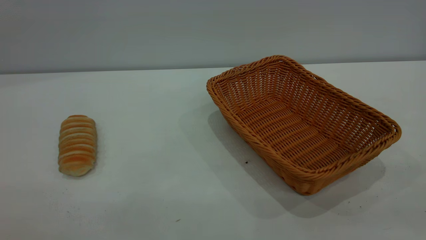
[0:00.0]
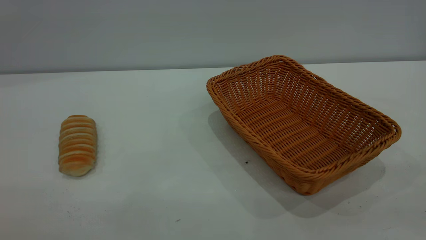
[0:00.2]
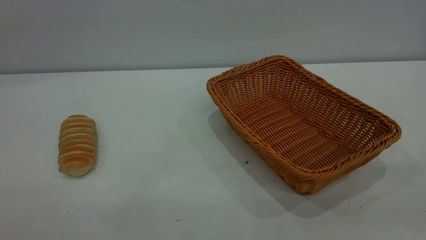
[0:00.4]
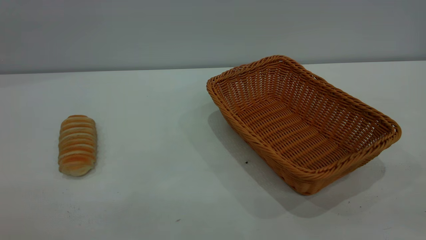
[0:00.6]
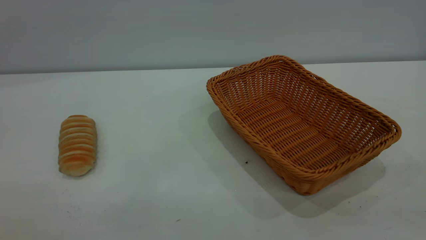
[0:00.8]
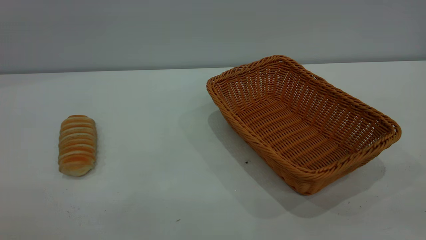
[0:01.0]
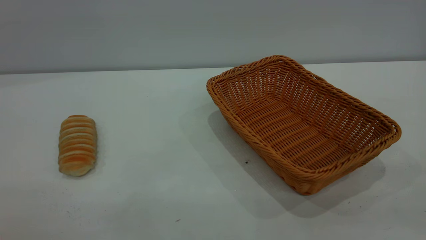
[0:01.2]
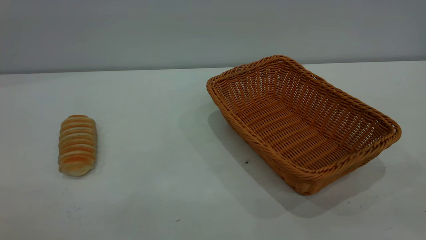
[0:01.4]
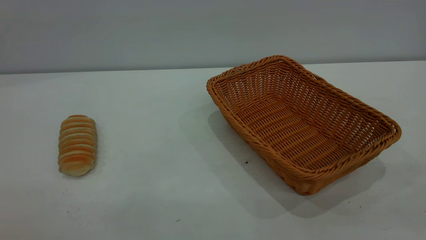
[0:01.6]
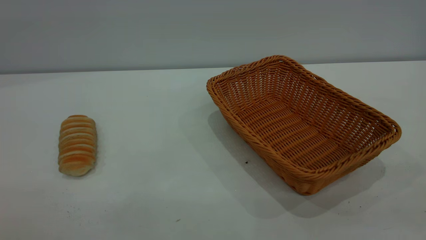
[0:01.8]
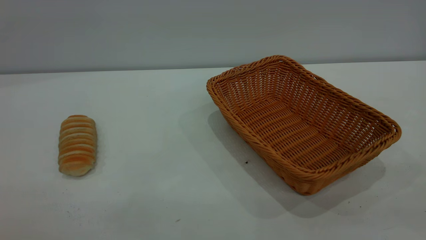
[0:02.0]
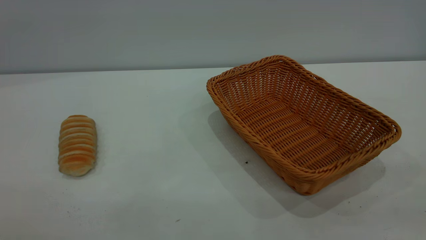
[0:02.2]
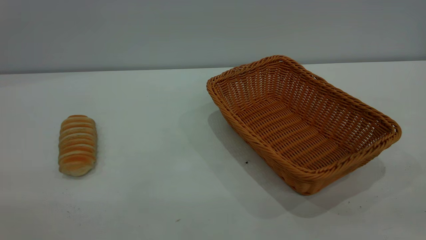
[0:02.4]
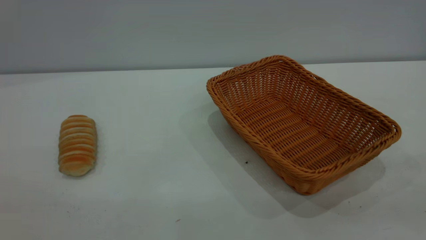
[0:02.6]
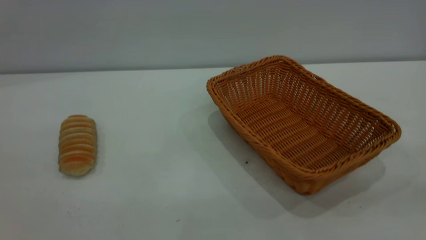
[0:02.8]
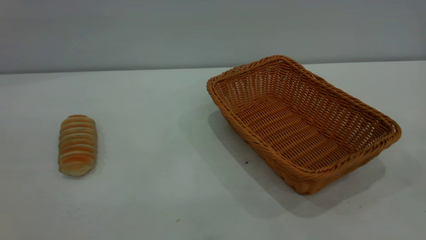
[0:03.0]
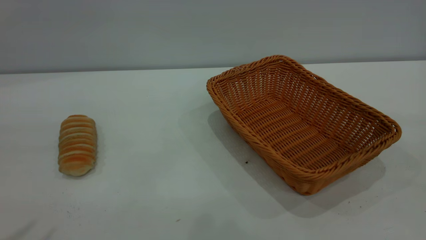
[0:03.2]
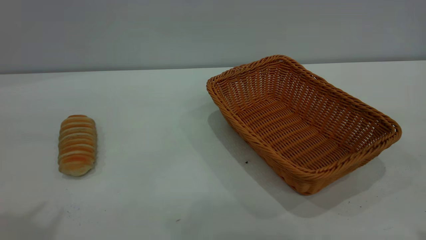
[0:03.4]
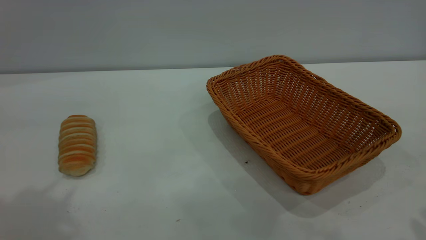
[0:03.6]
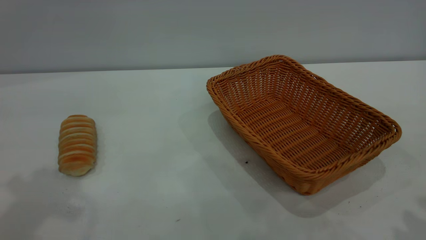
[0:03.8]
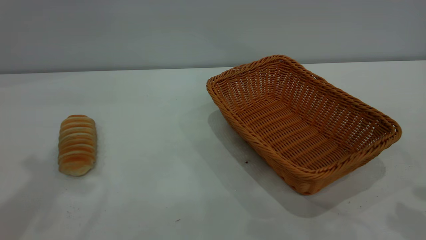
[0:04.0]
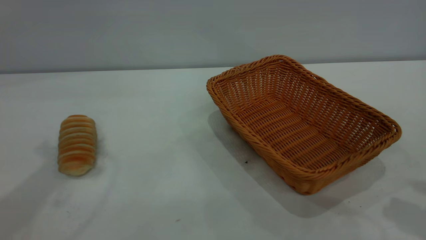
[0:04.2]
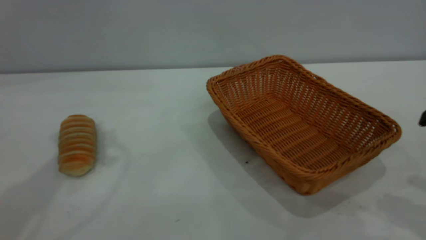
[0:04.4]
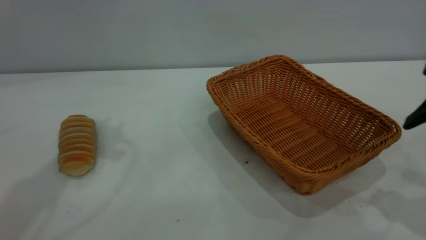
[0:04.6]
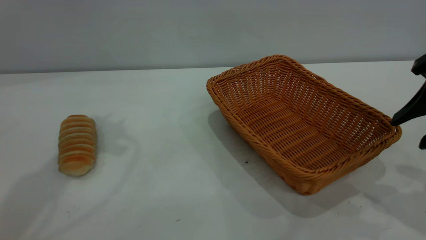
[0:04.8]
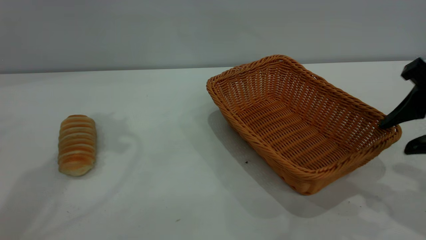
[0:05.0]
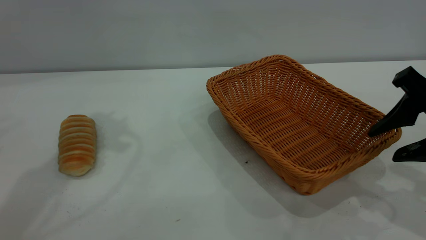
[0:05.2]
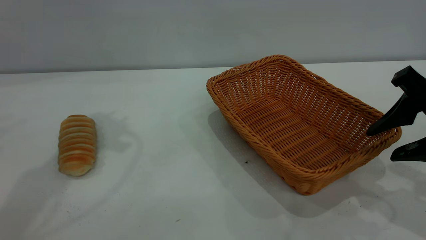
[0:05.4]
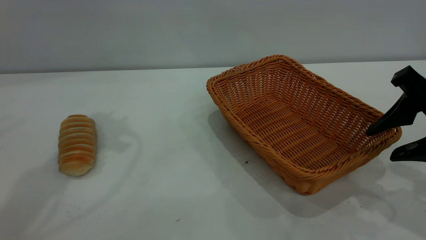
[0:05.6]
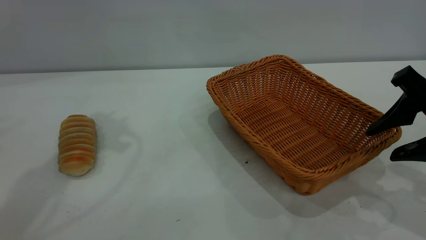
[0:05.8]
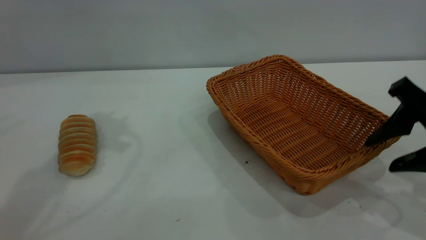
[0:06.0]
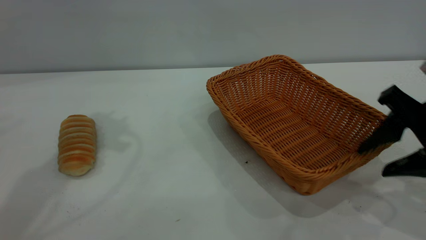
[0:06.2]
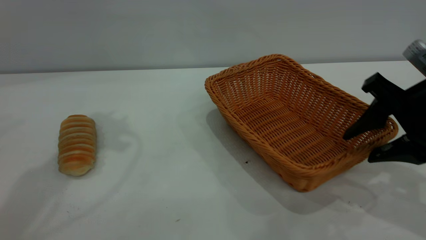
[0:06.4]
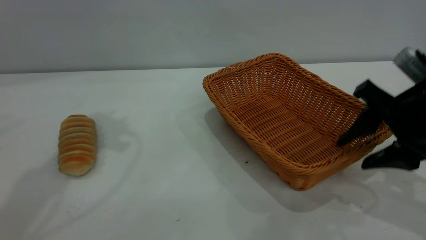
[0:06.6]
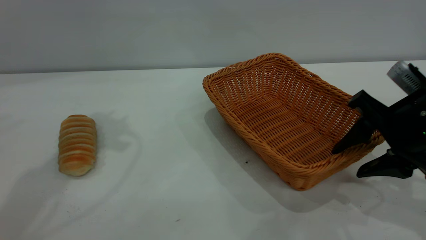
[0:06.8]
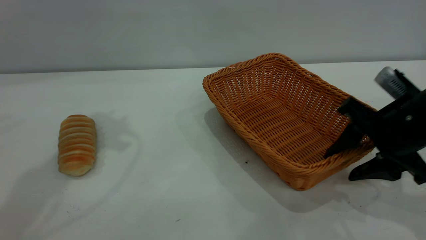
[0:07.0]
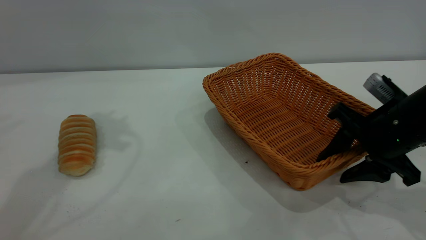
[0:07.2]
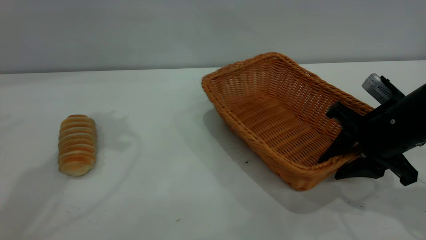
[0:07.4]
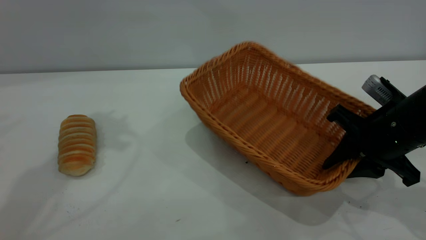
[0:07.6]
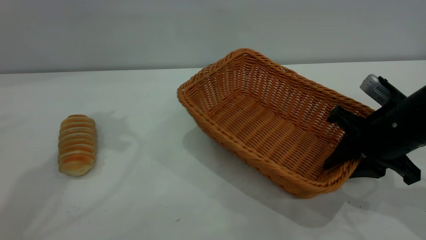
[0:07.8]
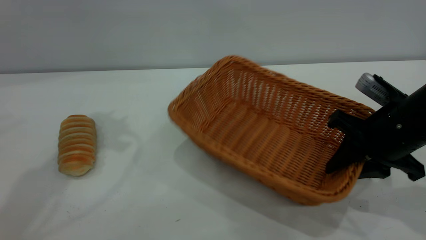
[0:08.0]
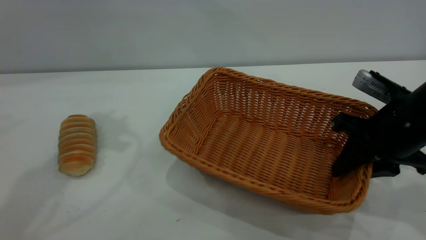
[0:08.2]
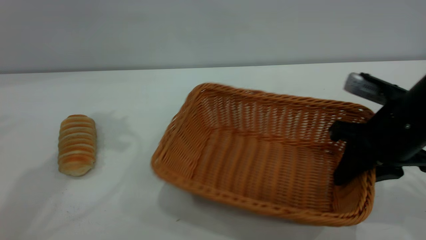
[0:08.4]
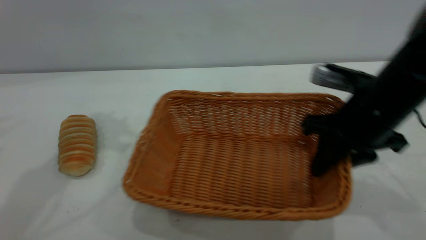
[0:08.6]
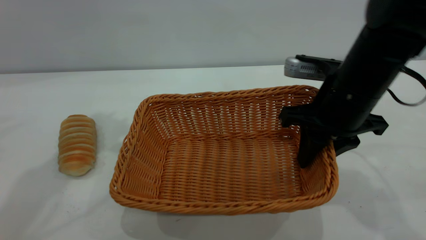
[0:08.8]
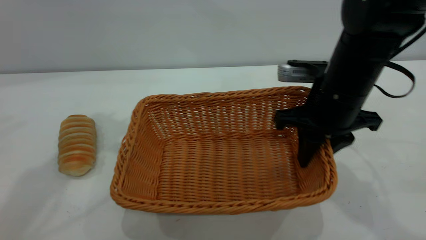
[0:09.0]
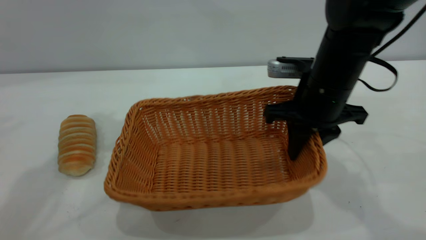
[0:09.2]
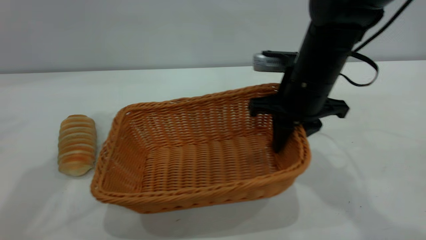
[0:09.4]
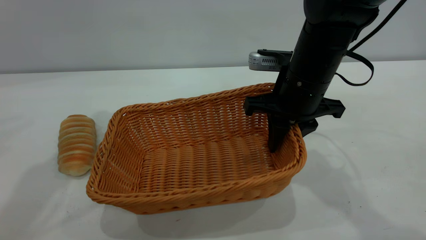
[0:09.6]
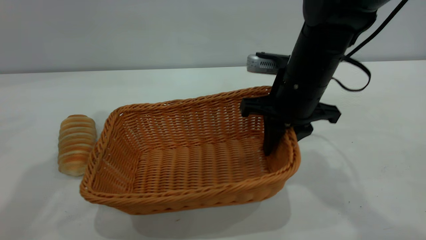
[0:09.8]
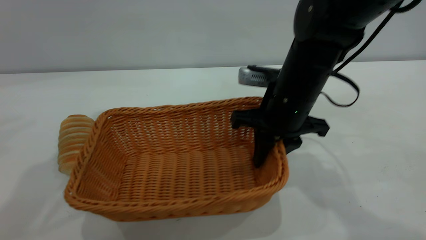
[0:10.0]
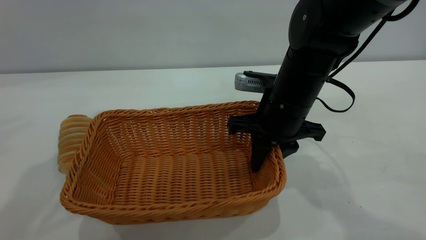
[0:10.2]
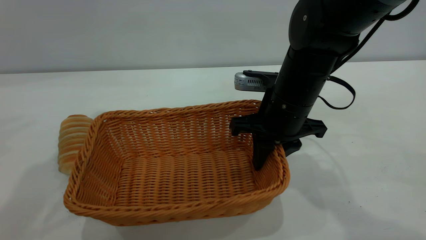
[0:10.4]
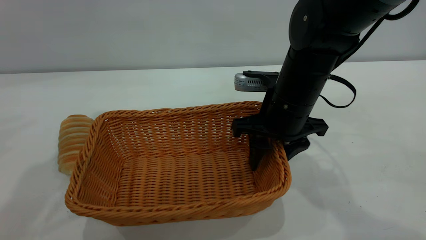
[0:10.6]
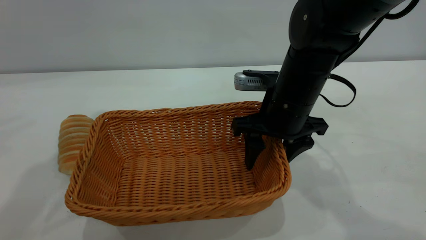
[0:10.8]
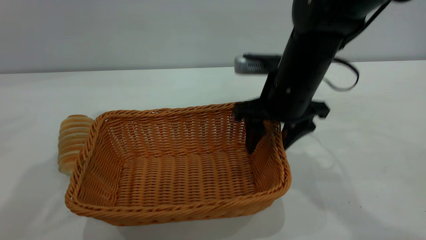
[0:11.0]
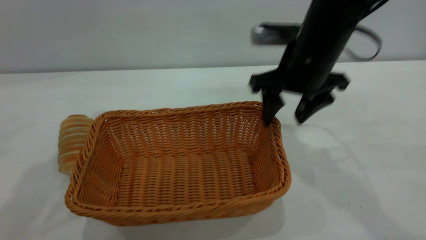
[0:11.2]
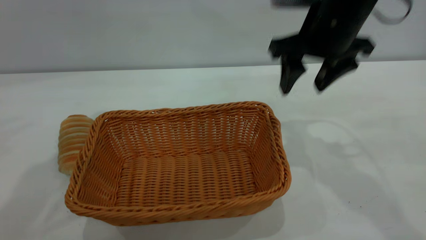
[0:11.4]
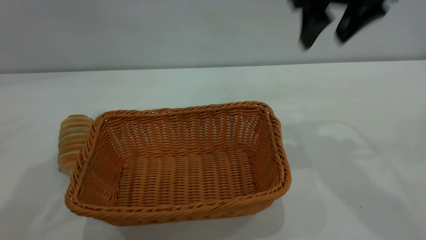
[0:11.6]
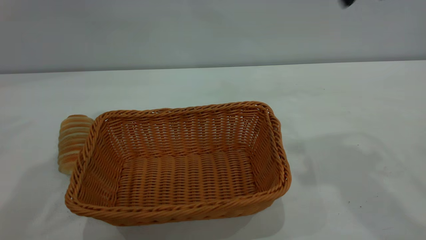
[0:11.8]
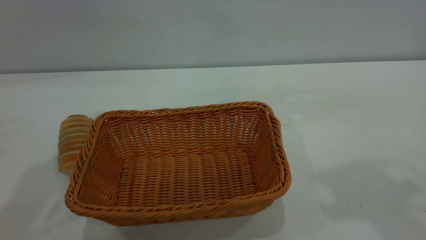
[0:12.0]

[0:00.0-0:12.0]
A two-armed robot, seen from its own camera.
Task of the whole recording: One hand grasps the yellow basket and places it in the middle of the table, while the other hand picks up the long bread and puts it into the yellow basket.
Step, 0:00.0 to 0:11.2: Move the basket to the center of view.
0:00.0 to 0:01.6: Both grippers stay put.
0:04.4 to 0:06.0: The right gripper heads downward, covering some 5 cm.
0:06.0 to 0:07.6: The right gripper heads downward, covering roughly 5 cm, and closes up.
0:07.6 to 0:09.0: The right gripper heads to the left, covering approximately 10 cm.
0:09.0 to 0:10.4: The right gripper goes about 5 cm to the left.
0:10.4 to 0:12.0: The right gripper goes roughly 30 cm upward, to the right and backward, and opens.

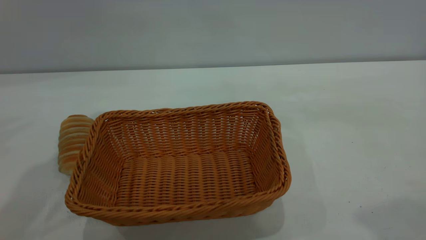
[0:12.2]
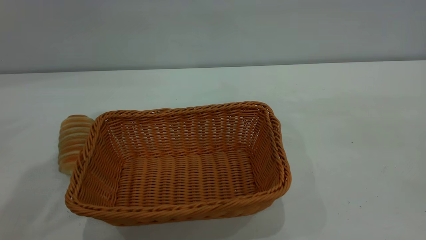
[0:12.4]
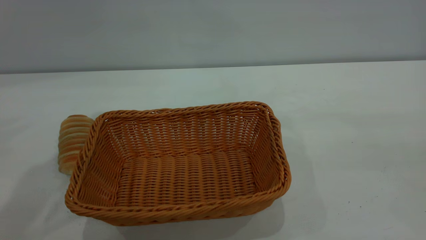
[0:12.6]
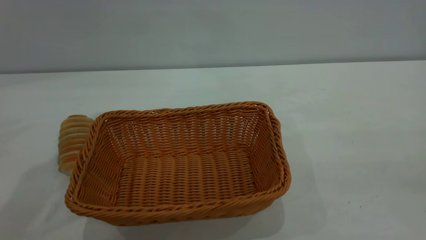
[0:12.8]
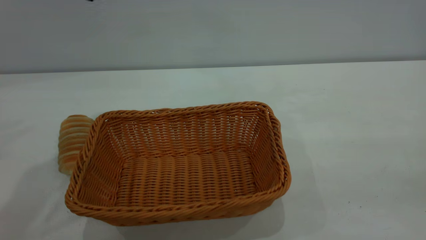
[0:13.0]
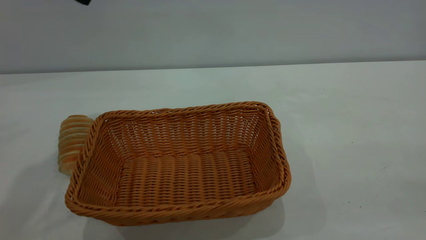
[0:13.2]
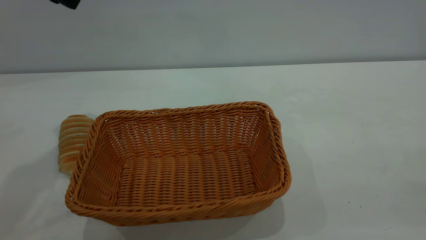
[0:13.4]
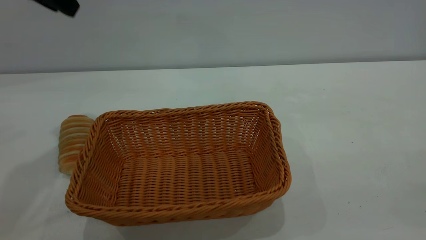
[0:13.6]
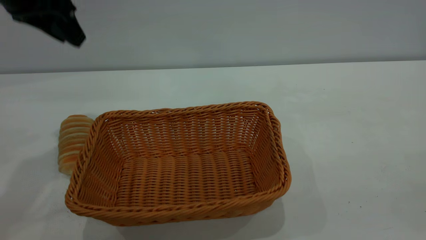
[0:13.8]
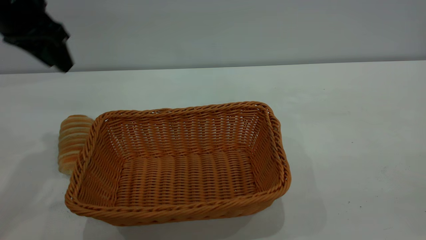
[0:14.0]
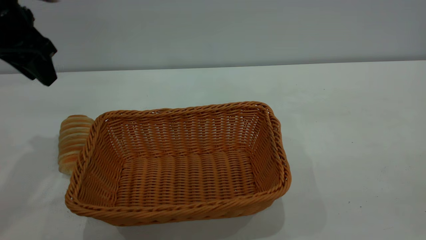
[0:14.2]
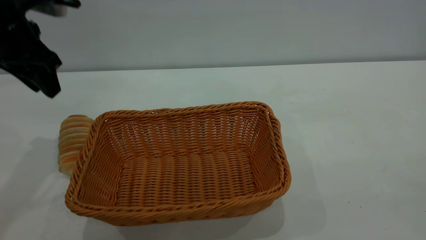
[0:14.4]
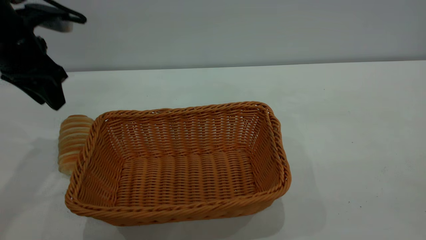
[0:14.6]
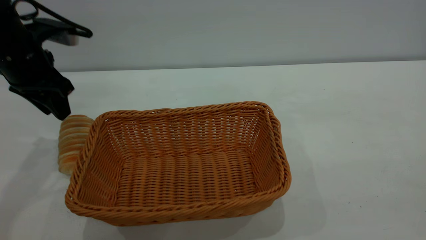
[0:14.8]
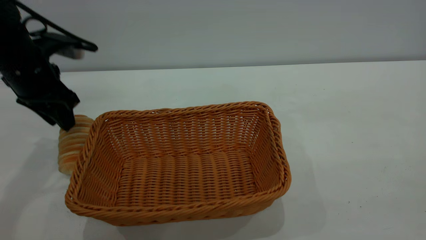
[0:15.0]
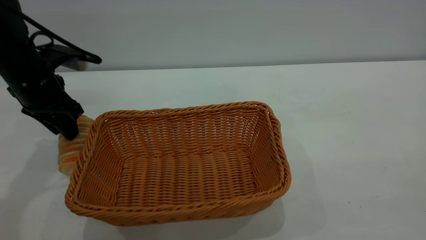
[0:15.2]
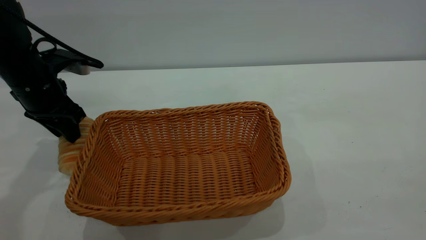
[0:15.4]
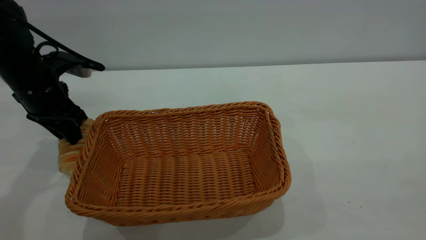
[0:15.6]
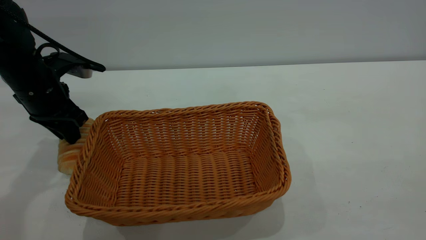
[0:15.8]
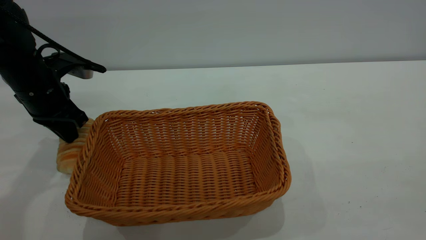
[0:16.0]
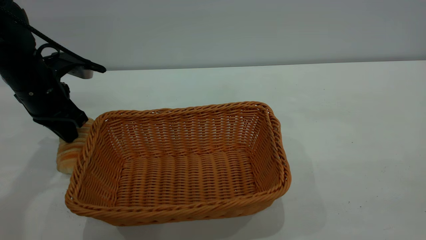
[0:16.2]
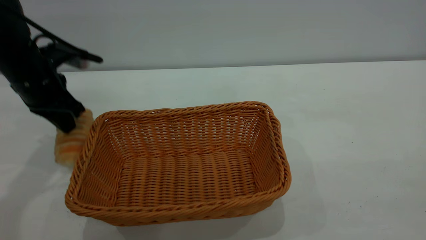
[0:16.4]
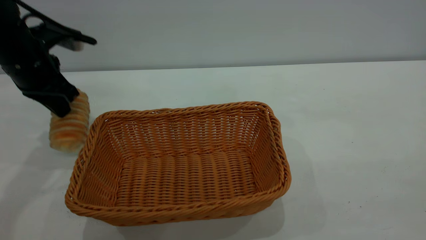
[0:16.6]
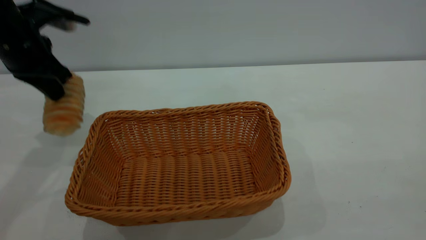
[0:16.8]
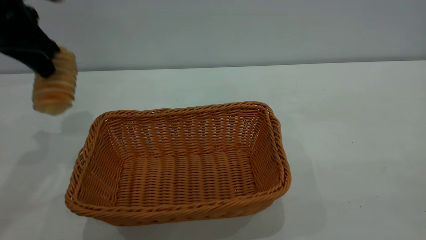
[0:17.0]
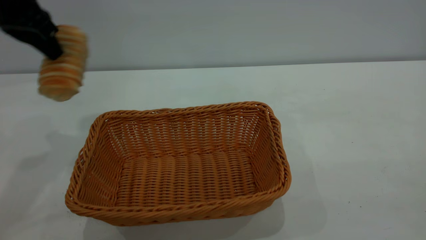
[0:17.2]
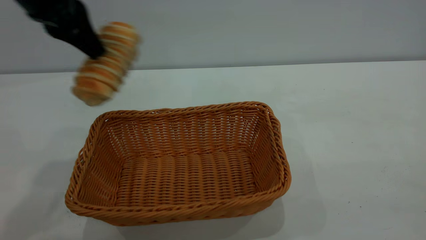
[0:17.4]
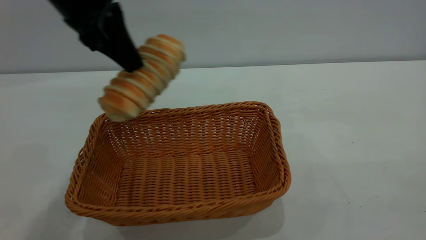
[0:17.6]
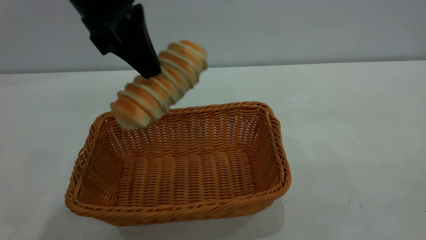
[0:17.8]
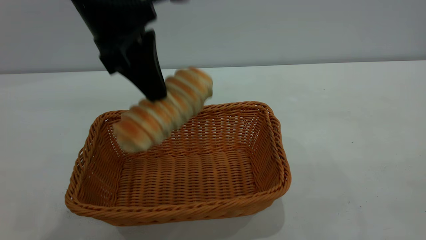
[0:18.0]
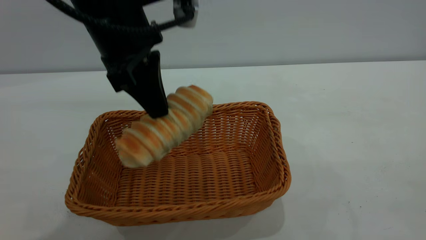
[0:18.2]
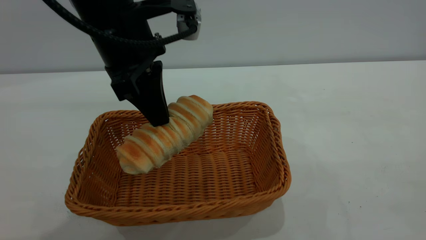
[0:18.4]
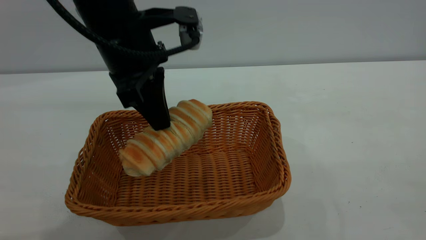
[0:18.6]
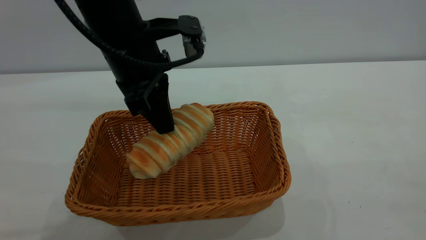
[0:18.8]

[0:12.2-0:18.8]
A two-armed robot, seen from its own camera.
Task of the whole recording: One hand grasps the yellow basket and places it in the middle of the table, while the other hand picks up the long bread and puts it into the yellow basket.
0:12.2 to 0:13.8: The left gripper travels downward by about 5 cm.
0:13.8 to 0:15.4: The left gripper goes roughly 15 cm downward.
0:15.4 to 0:17.2: The left gripper heads upward, covering about 15 cm, and closes its fingers.
0:17.2 to 0:18.8: The left gripper moves to the right and downward, some 15 cm.
